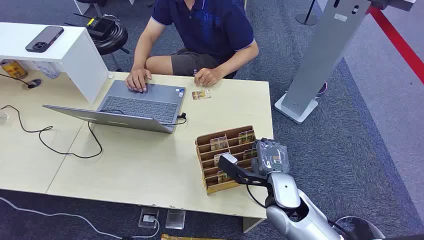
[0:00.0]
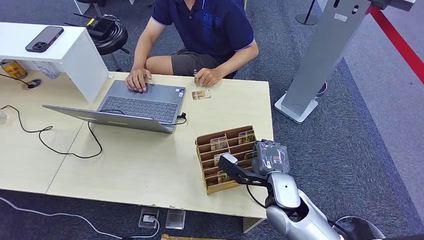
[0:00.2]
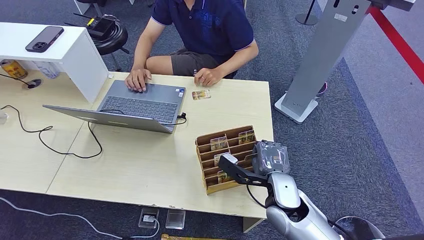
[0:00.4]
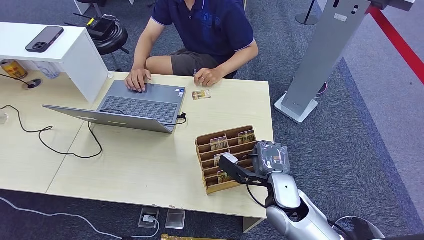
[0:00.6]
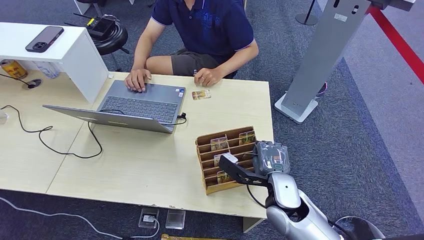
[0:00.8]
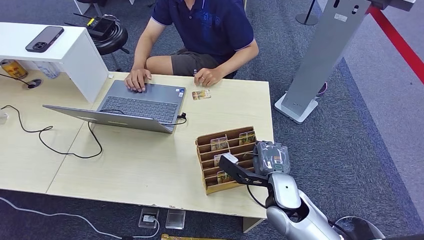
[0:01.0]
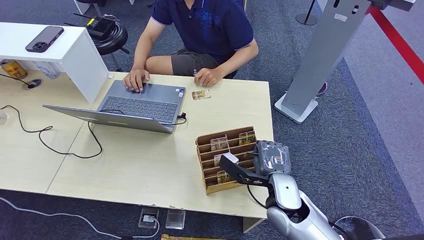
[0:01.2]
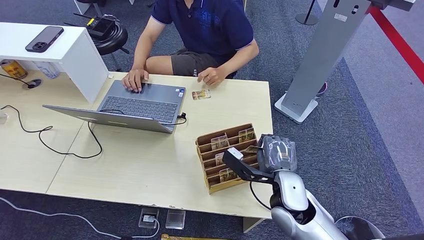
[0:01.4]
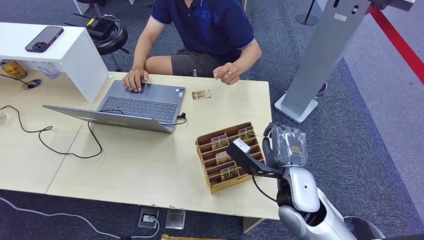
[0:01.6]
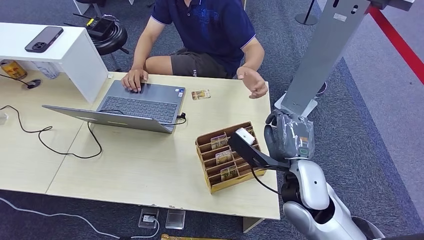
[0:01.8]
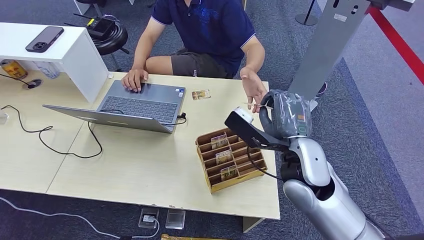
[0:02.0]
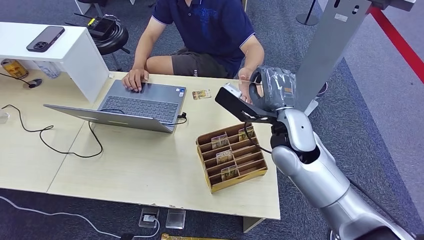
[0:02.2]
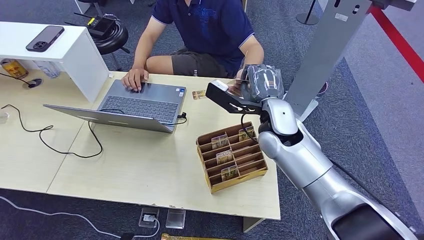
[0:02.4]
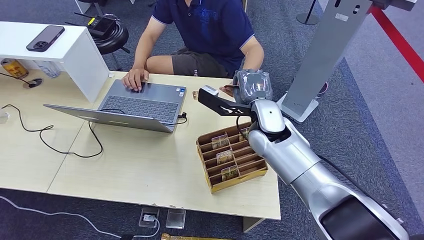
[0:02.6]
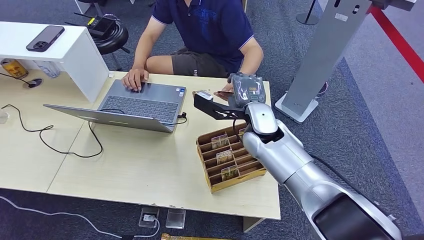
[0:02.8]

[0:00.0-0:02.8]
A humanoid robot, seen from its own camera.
Step, 0:00.0 to 0:01.4: Pick up the room card from the card holder.
Step, 0:01.8 to 0:02.8: Hand the room card to the target.
0:01.4 to 0:02.8: The right hand heads forward, upward and to the left, covering approximately 20 cm.

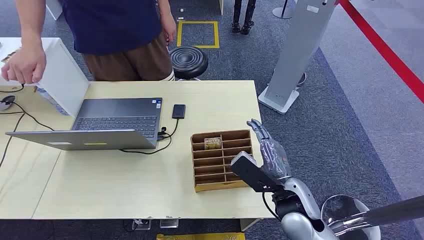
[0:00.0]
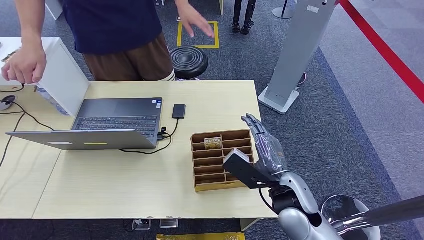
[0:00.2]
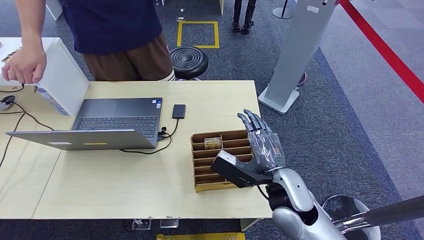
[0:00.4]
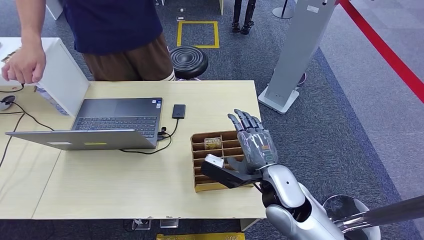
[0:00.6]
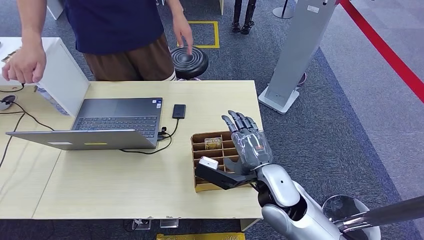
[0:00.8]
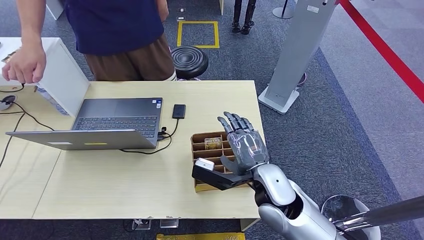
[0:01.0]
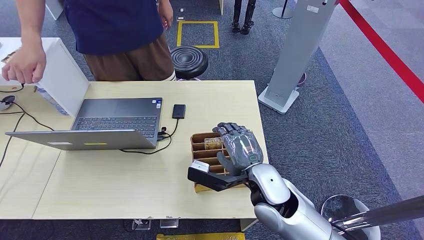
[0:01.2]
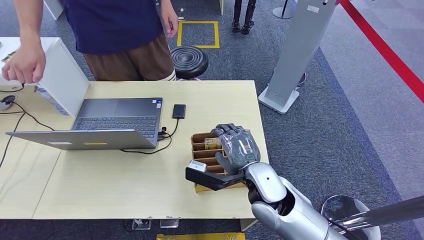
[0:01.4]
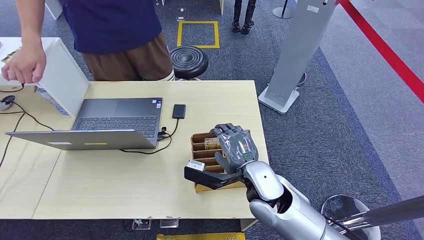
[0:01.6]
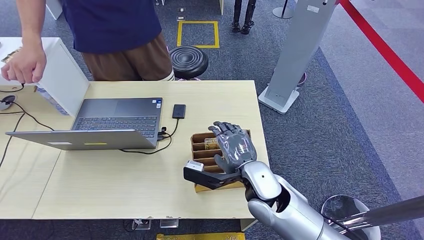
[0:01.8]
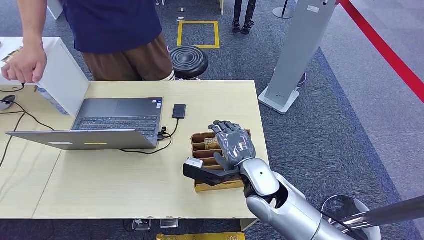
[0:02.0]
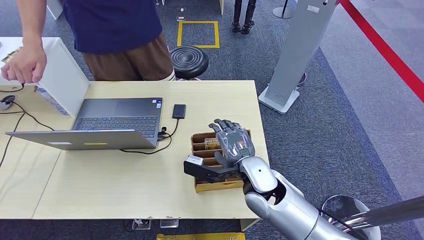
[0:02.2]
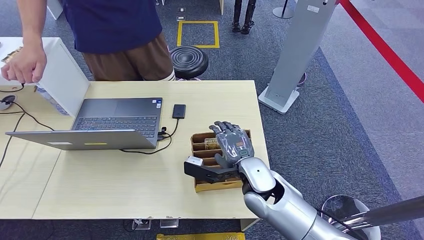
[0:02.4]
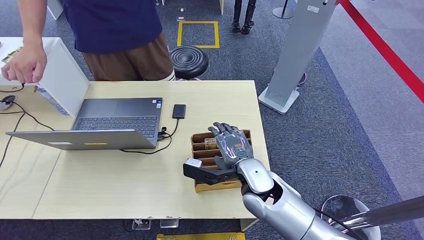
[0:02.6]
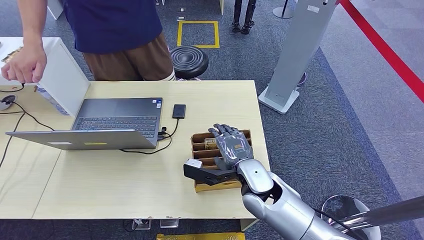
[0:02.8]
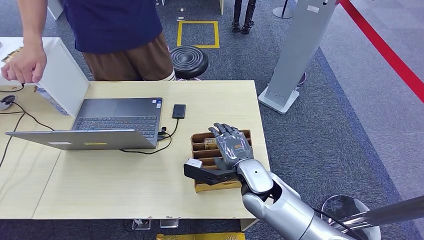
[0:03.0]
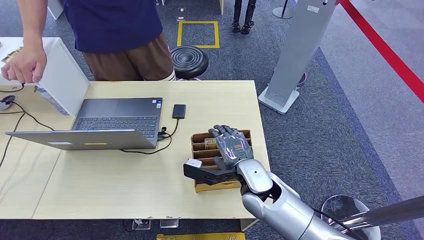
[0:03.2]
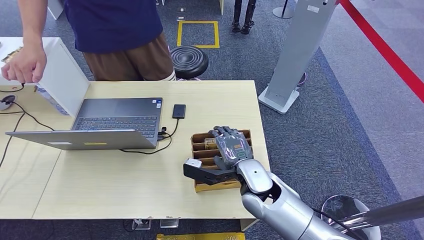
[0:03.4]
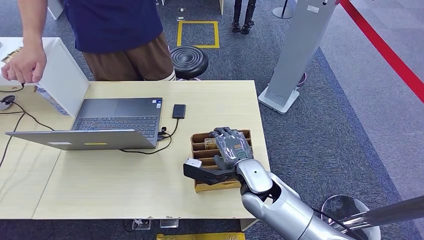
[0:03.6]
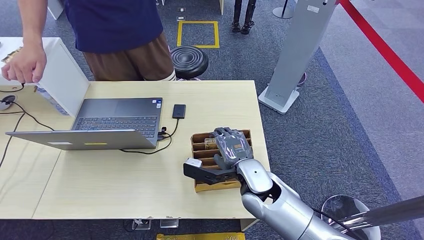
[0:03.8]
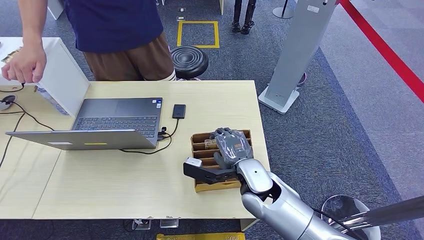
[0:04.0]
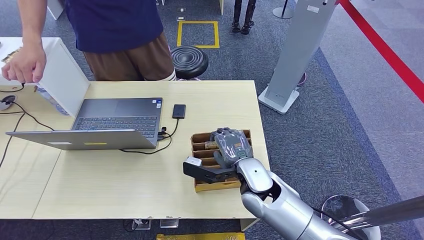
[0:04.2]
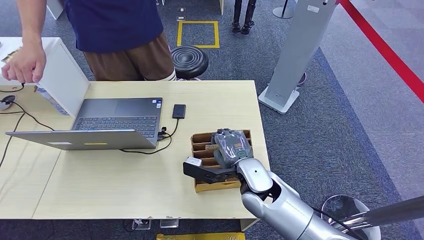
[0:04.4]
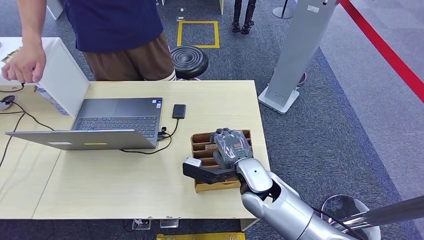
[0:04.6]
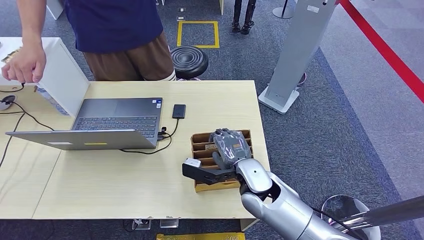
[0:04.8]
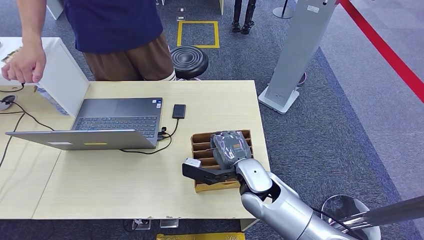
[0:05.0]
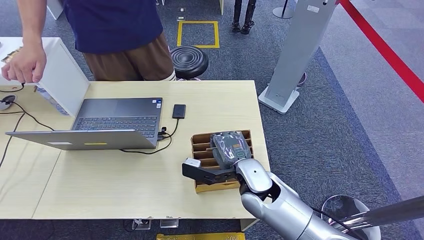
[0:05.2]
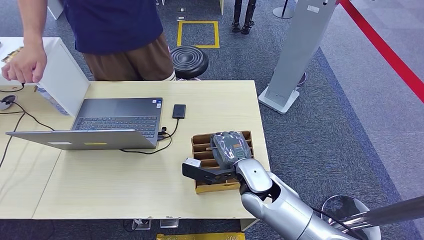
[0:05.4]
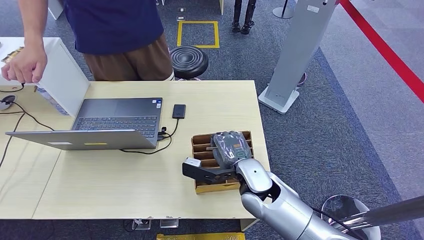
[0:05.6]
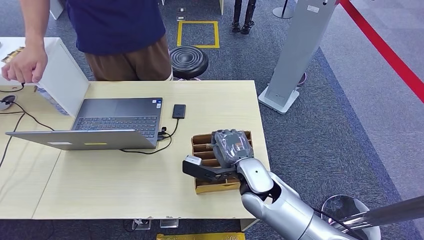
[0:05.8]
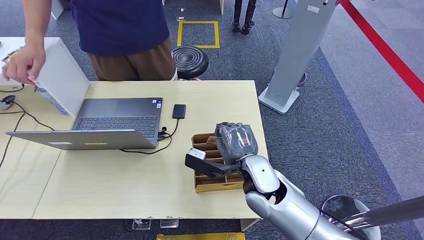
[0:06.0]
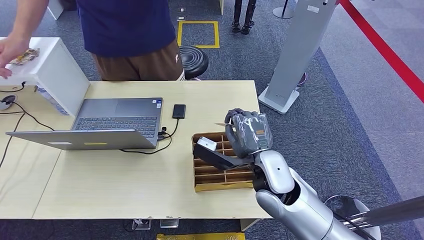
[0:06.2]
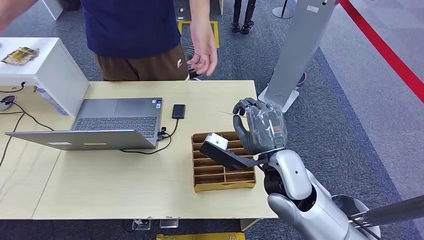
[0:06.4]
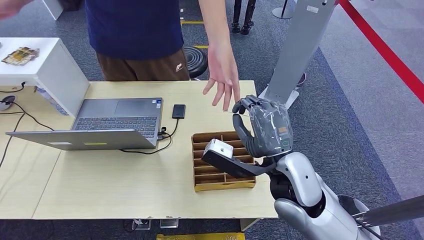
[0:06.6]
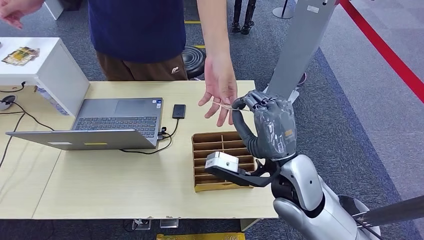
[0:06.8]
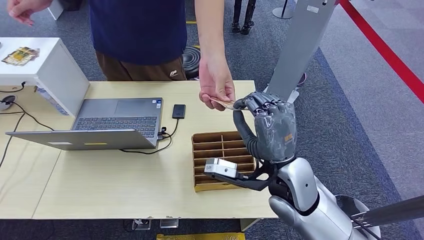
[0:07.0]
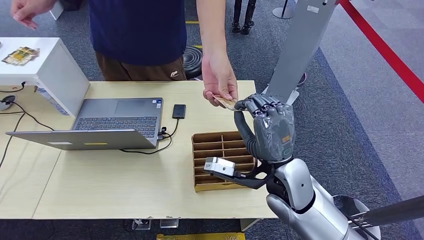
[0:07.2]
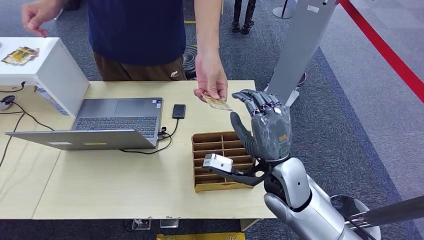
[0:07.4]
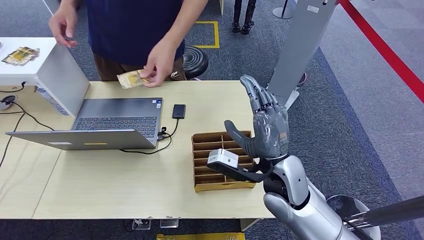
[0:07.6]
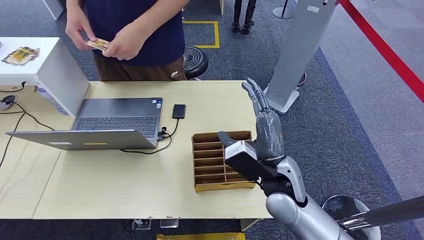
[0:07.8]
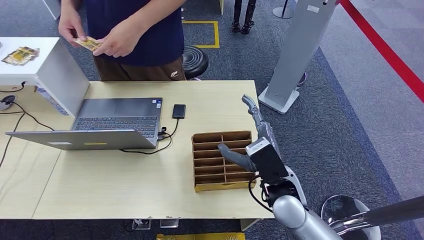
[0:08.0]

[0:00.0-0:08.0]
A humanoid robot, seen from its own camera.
Step, 0:00.0 to 0:05.6: Pick up the room card from the card holder.
Step, 0:06.0 to 0:08.0: Hand the room card to the target.
0:01.6 to 0:03.2: The hands move only a little.
0:03.2 to 0:04.8: Both hands stay about where they are.
0:04.8 to 0:06.4: The right hand travels upward by some 10 cm.
0:06.4 to 0:08.0: The right hand goes some 5 cm downward.
